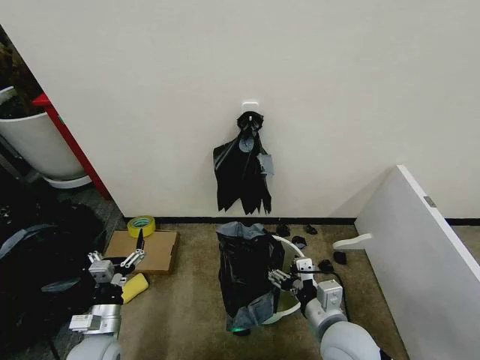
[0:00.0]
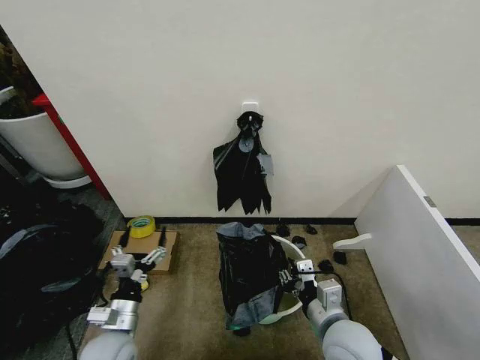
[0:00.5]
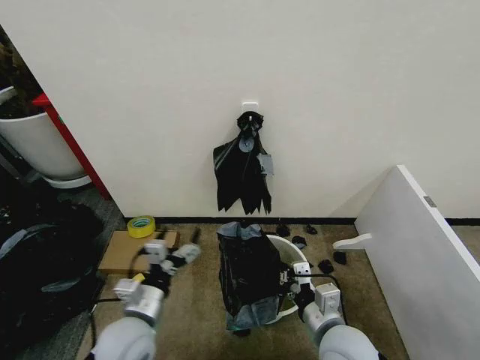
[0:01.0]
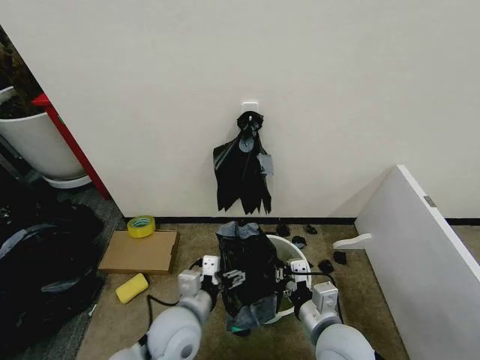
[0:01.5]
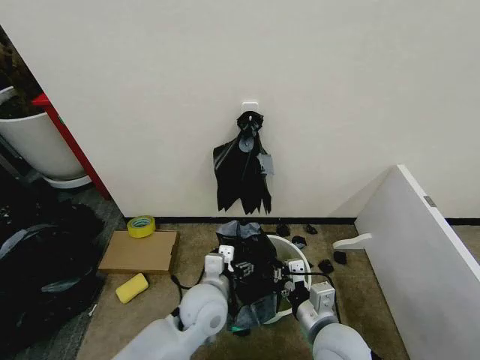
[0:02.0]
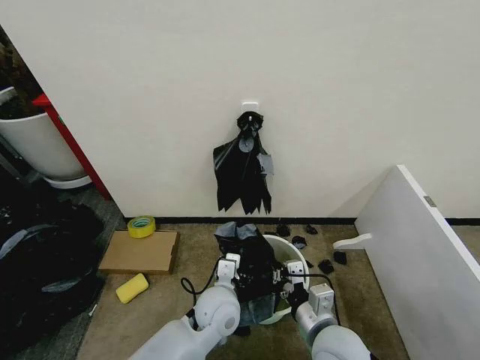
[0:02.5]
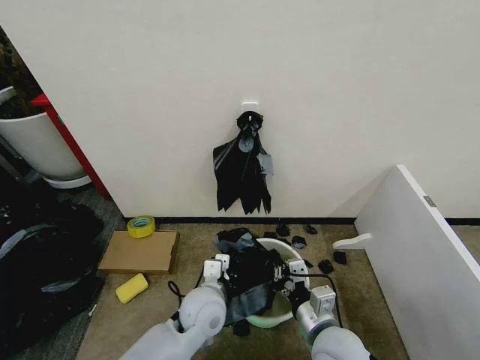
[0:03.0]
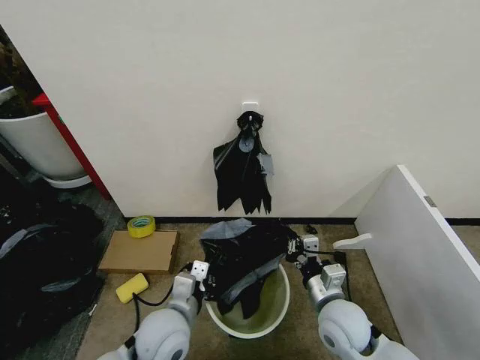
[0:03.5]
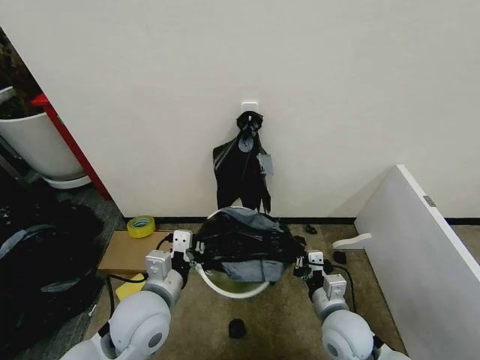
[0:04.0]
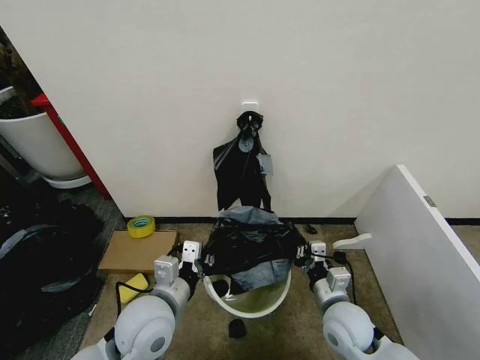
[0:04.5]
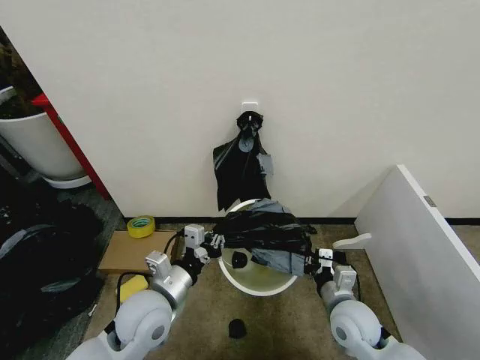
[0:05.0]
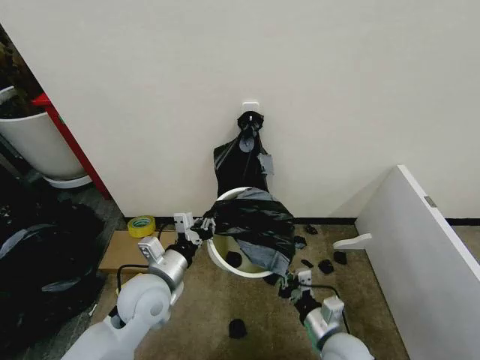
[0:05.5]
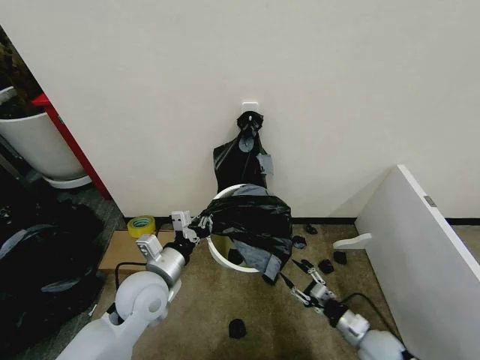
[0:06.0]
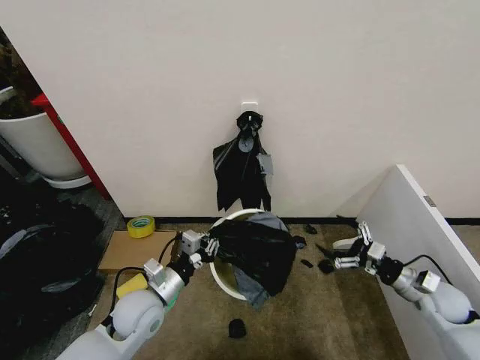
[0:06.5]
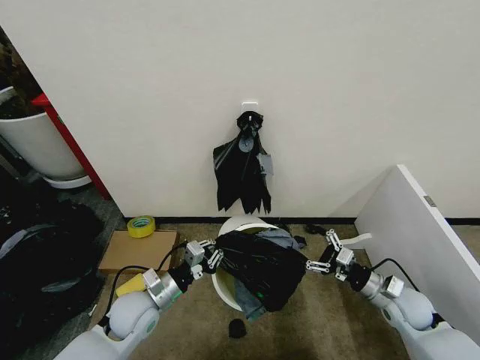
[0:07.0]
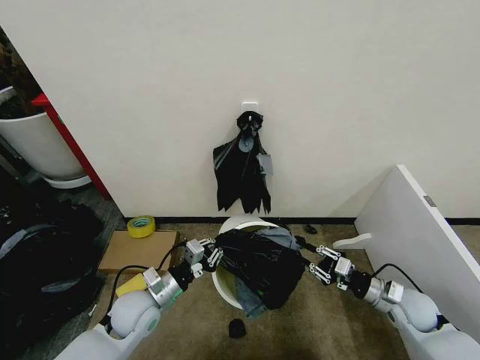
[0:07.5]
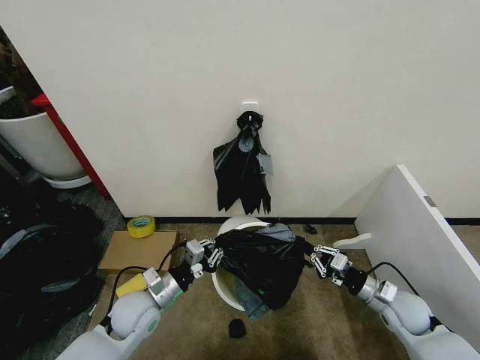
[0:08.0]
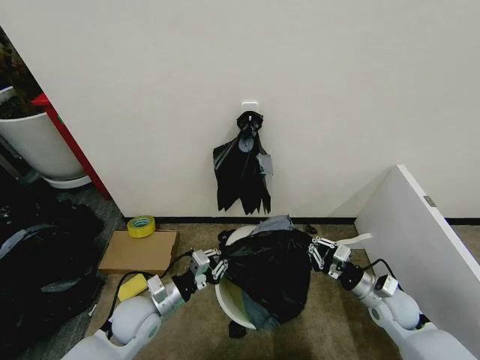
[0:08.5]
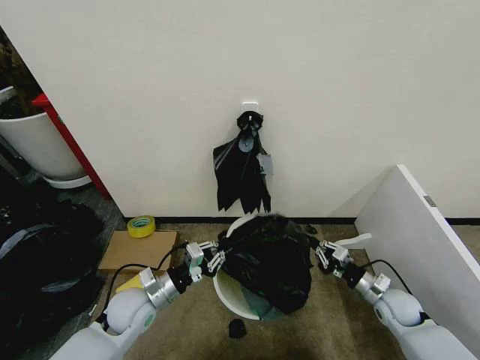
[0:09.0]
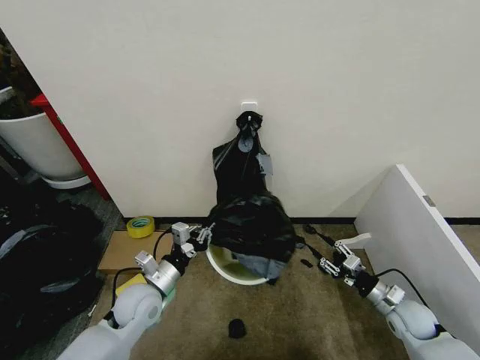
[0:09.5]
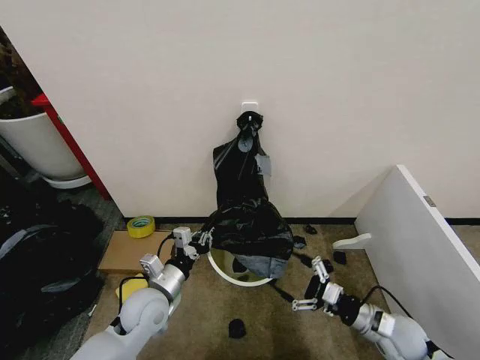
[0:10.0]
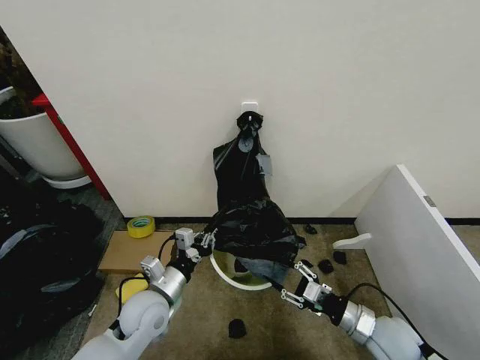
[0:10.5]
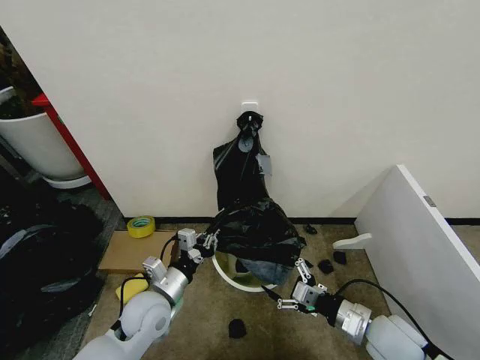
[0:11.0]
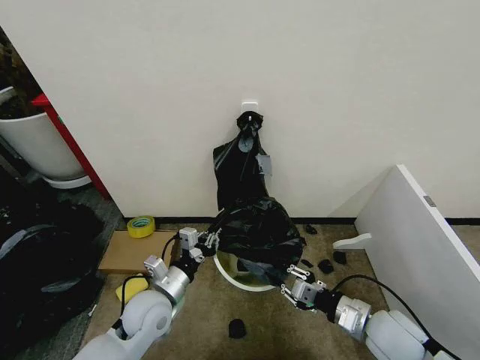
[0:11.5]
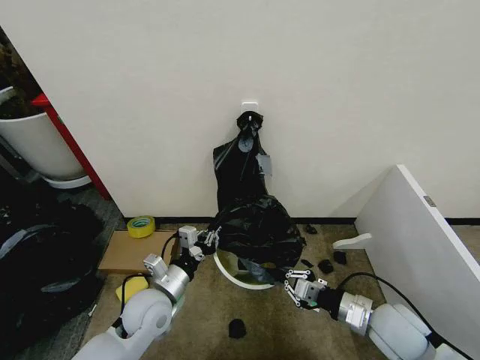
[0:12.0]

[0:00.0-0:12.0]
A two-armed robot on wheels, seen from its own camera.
Task of the whole recording: Place the garbage bag over the trash bin.
0:00.0 to 0:02.0: The left gripper shifts some 25 cm to the right, while the right gripper closes its fingers.
0:02.0 to 0:04.0: The right gripper moves downward, roughly 5 cm, while the left gripper heads to the left and upward, covering approximately 10 cm, and closes up.
0:04.0 to 0:06.0: The right gripper heads to the right and downward, covering approximately 15 cm, and opens; the left gripper moves forward, roughly 5 cm.
0:06.0 to 0:08.0: The left gripper goes about 10 cm downward. The right gripper shifts roughly 10 cm upward and forward, and closes up.
0:08.0 to 0:10.0: The right gripper ends up approximately 5 cm from where it was, and opens its fingers.
0:10.0 to 0:12.0: The right gripper is displaced upward by some 10 cm, and closes up.

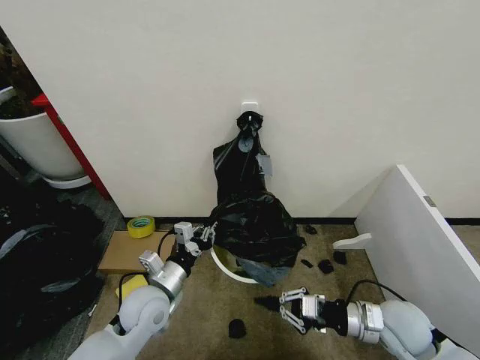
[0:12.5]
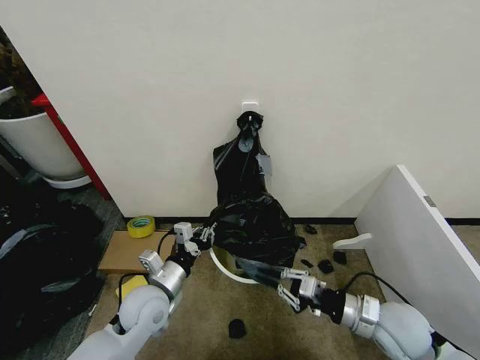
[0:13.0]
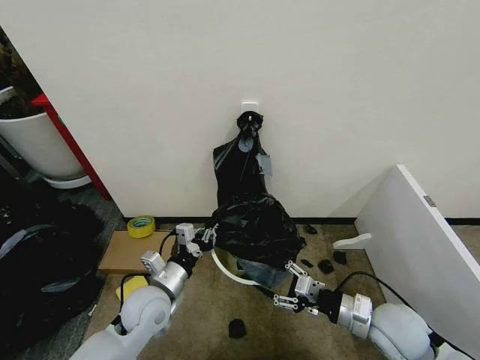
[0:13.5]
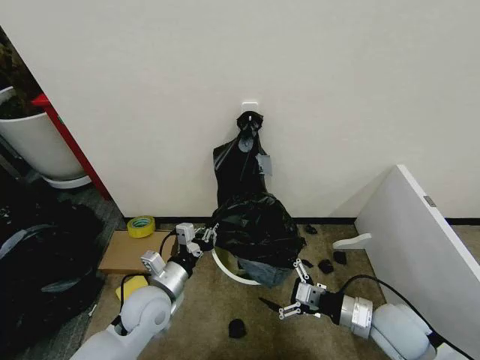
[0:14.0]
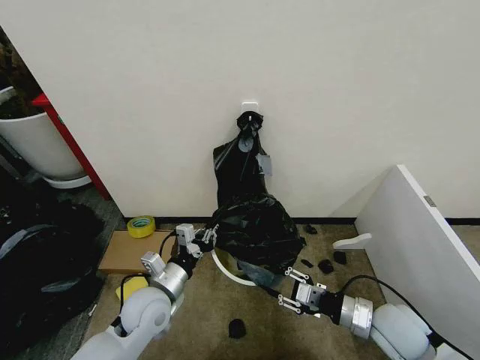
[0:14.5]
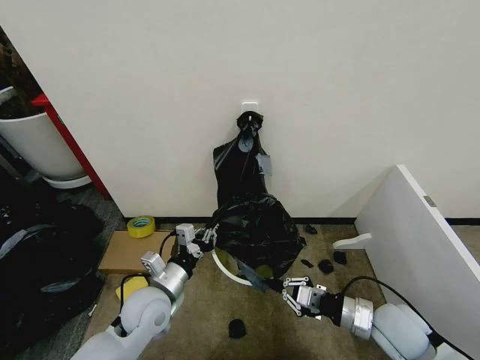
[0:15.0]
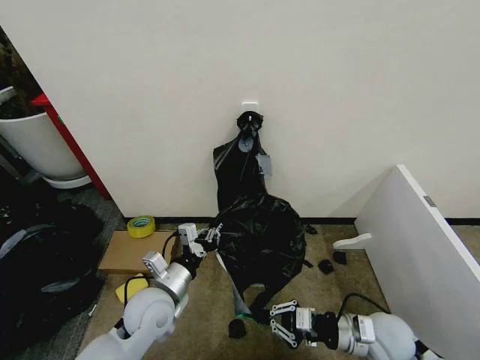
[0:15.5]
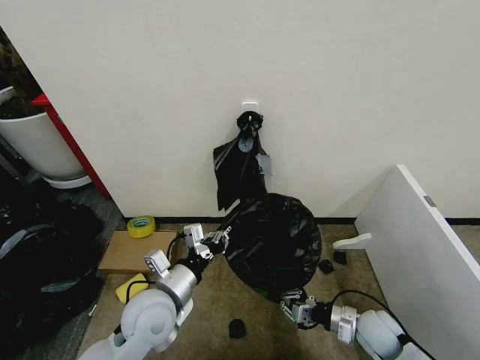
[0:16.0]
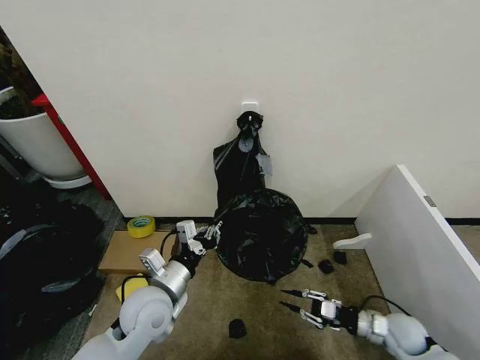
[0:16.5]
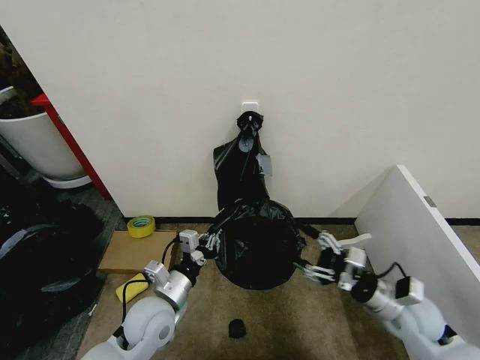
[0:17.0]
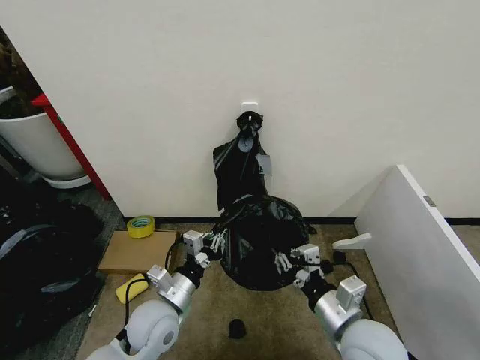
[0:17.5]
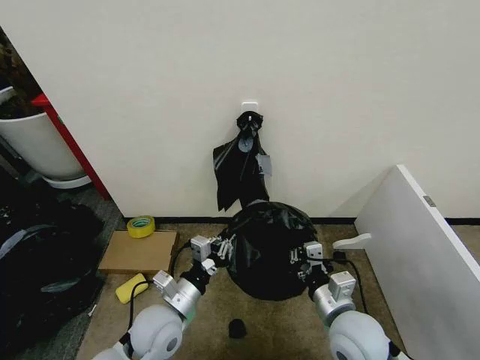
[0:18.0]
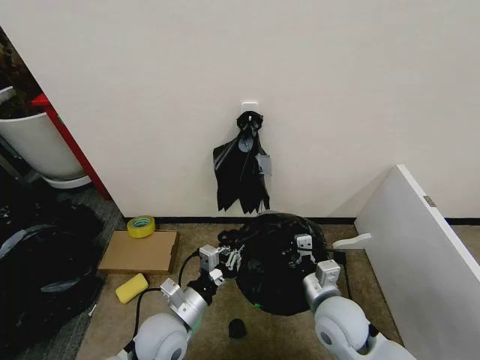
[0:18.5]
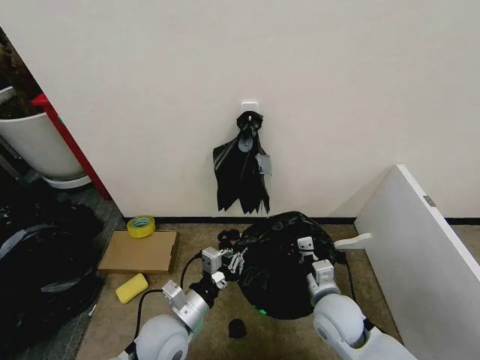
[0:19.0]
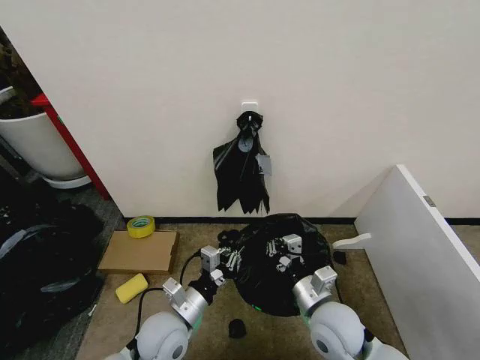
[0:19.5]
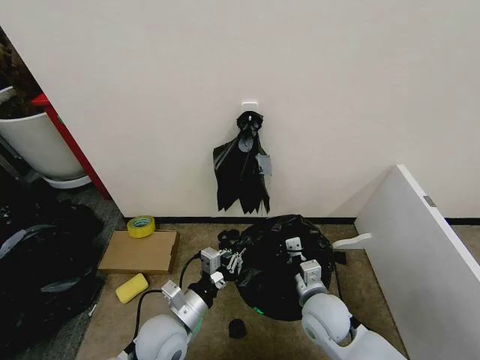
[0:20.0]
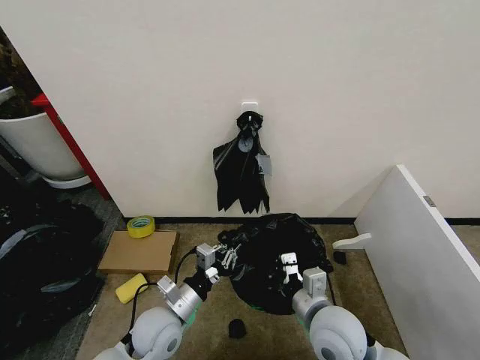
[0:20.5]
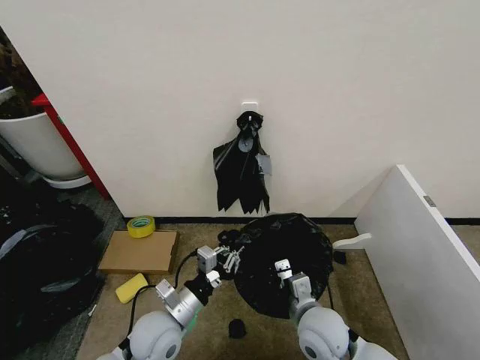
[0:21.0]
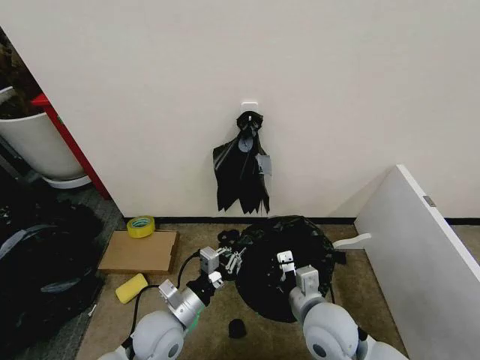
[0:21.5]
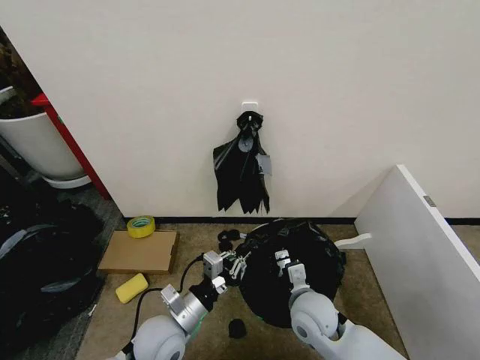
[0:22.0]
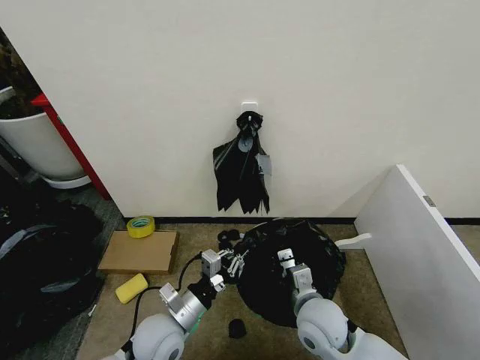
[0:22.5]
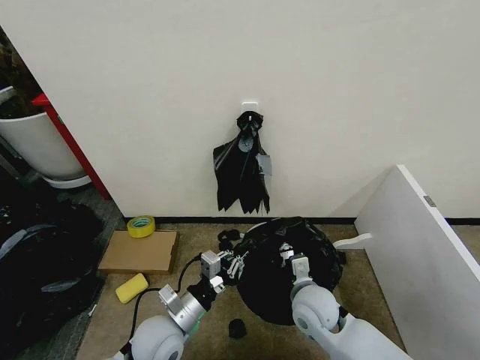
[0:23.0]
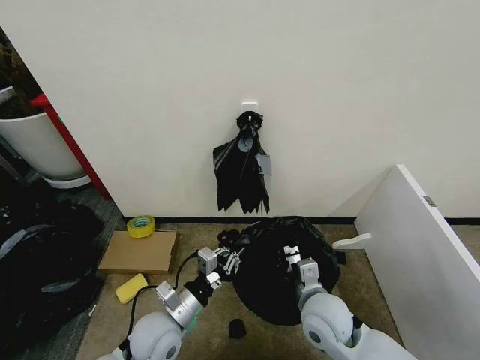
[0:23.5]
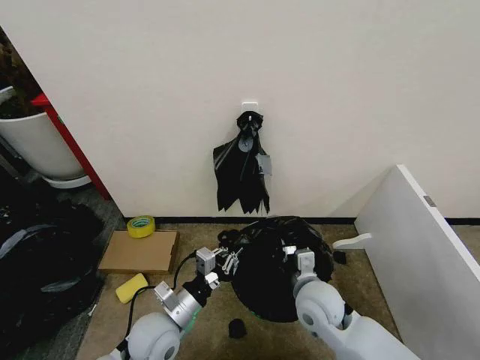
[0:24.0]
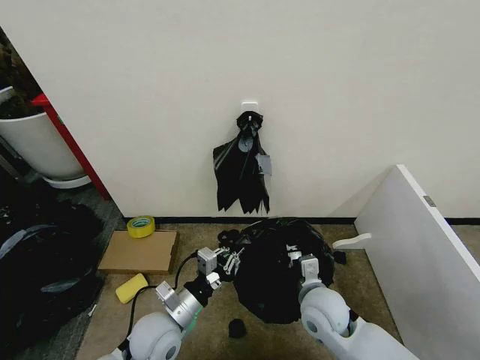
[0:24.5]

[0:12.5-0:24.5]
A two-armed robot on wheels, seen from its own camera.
Task of the whole recording: Place the garbage bag over the trash bin.
0:12.5 to 0:14.5: The right gripper opens up.
0:14.5 to 0:16.5: The right gripper travels downward and to the right by about 15 cm.
0:16.5 to 0:18.5: The right gripper moves to the left and upward, approximately 25 cm, and opens, then closes again. The left gripper shifts by approximately 5 cm.
0:18.5 to 0:20.5: The grippers stay close to where they were, moving slightly.
0:20.5 to 0:22.5: The right gripper swings up and down, roughly 5 cm each way, with 2 reversals.
0:22.5 to 0:24.5: The grippers move only a little.

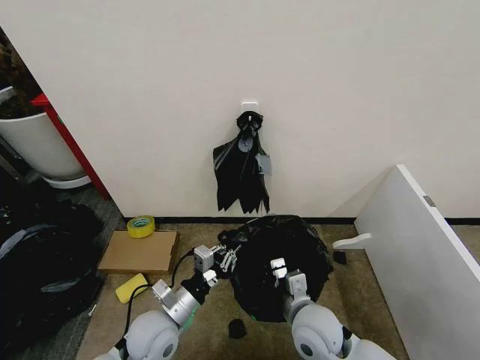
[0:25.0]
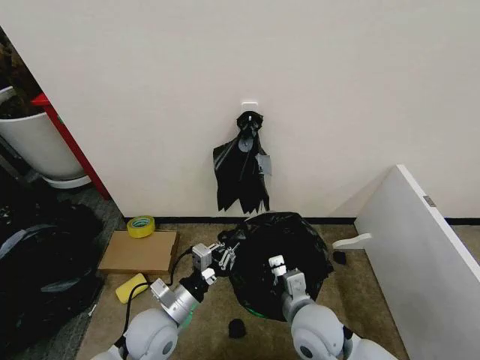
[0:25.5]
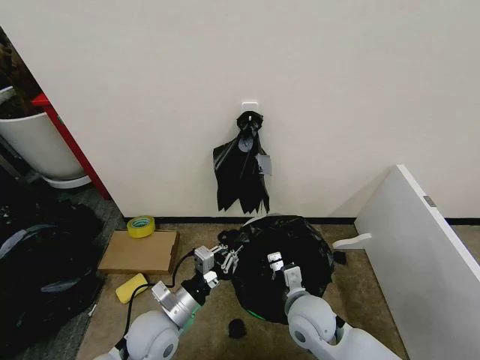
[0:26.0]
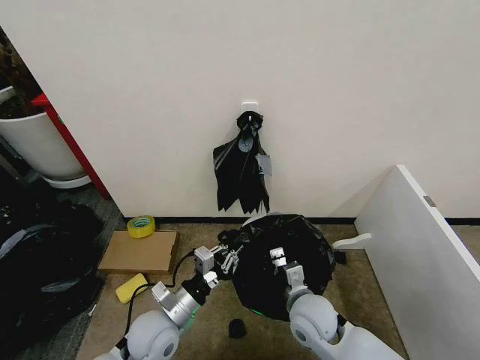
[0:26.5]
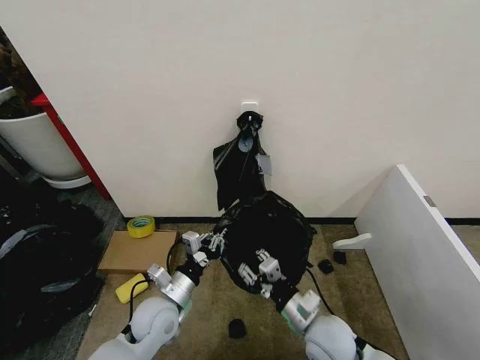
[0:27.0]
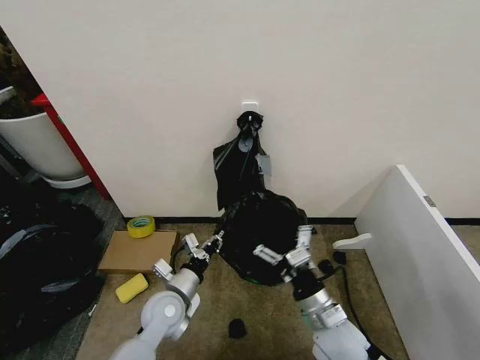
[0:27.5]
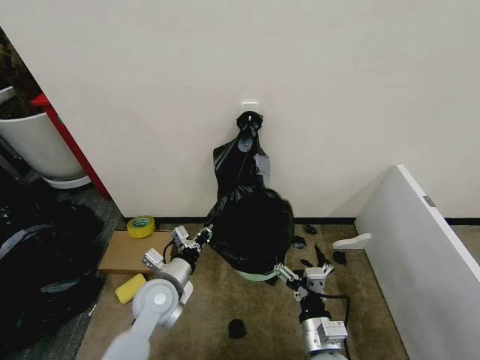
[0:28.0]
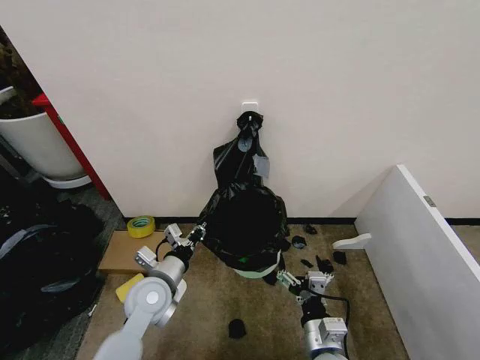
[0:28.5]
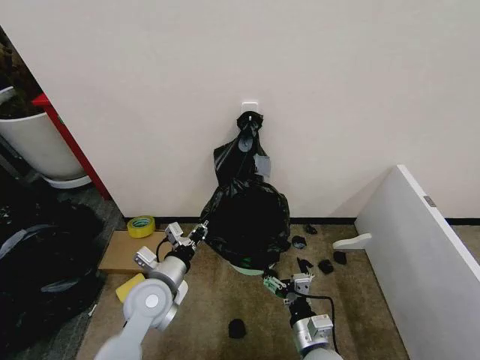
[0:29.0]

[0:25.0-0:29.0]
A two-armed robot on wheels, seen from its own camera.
Task of the whole recording: Place the garbage bag over the trash bin.
0:25.0 to 0:27.0: The right gripper opens its fingers.
0:27.0 to 0:29.0: The right gripper goes roughly 10 cm downward and backward, and opens. Meanwhile the left gripper shifts approximately 5 cm upward.
